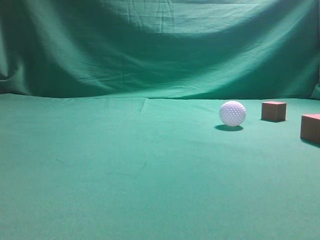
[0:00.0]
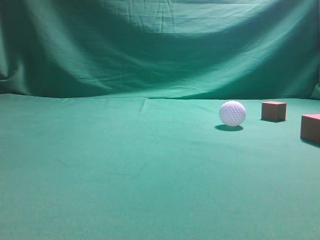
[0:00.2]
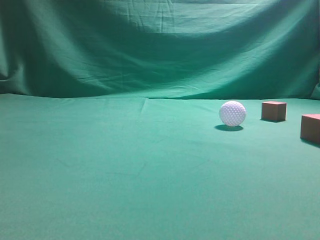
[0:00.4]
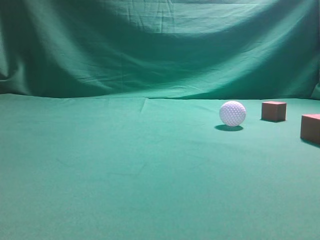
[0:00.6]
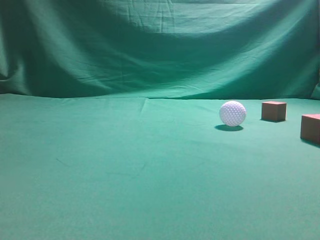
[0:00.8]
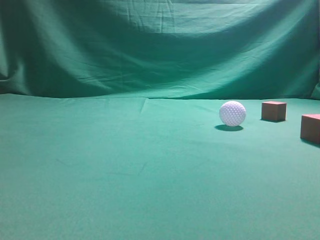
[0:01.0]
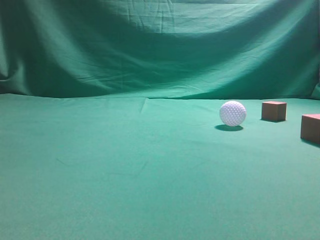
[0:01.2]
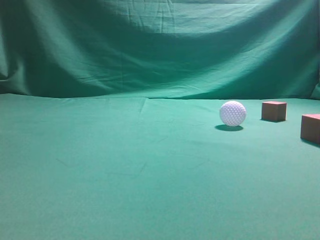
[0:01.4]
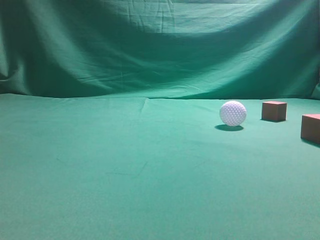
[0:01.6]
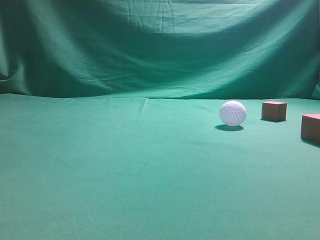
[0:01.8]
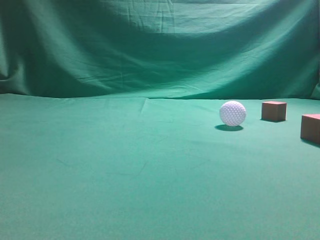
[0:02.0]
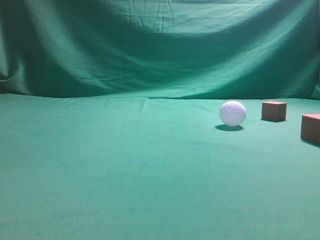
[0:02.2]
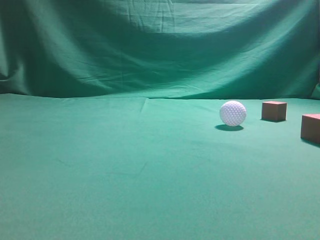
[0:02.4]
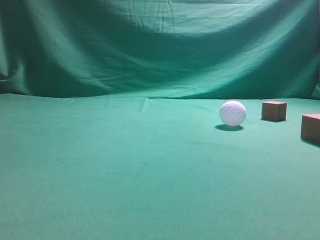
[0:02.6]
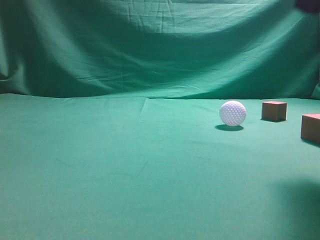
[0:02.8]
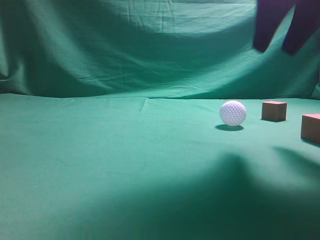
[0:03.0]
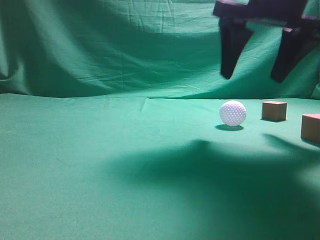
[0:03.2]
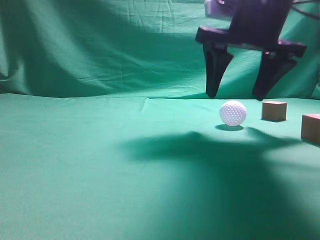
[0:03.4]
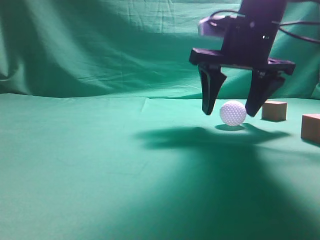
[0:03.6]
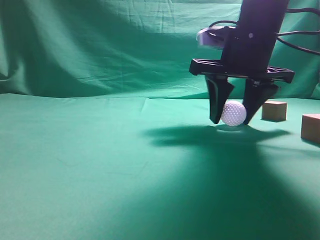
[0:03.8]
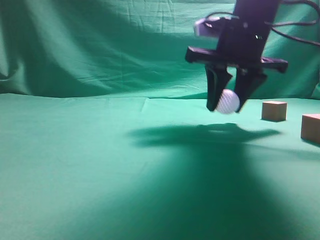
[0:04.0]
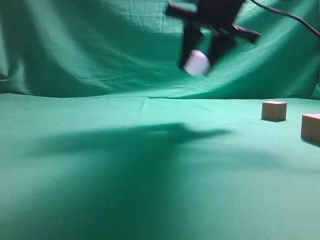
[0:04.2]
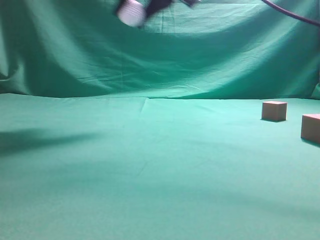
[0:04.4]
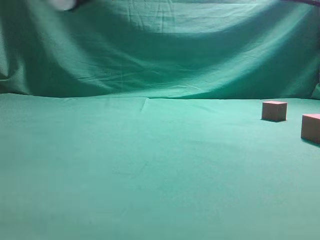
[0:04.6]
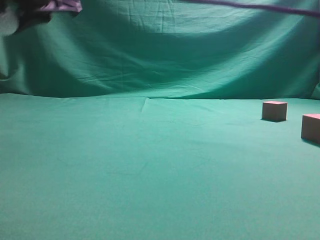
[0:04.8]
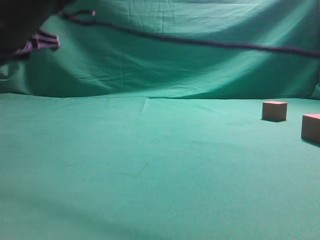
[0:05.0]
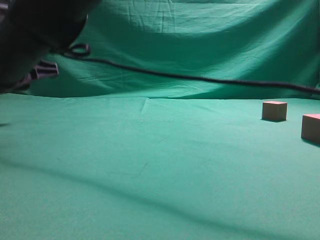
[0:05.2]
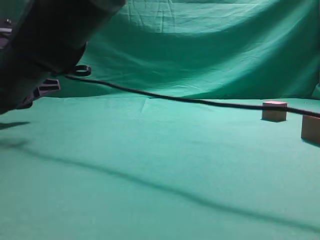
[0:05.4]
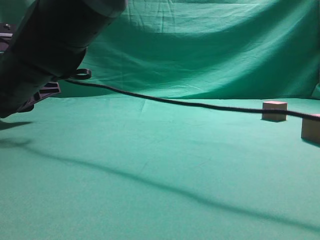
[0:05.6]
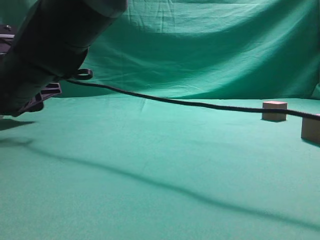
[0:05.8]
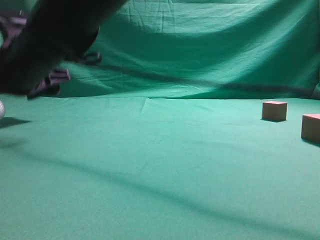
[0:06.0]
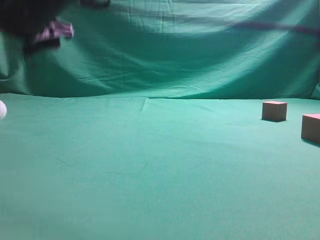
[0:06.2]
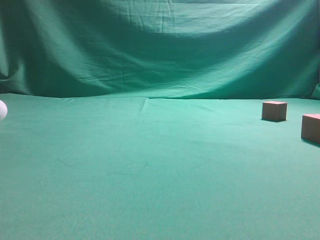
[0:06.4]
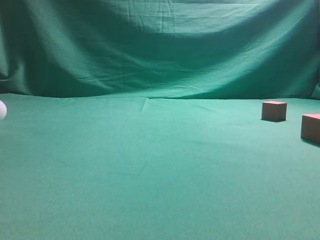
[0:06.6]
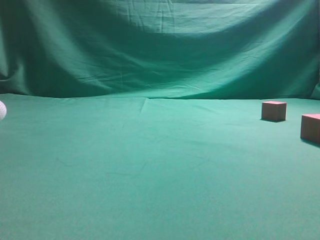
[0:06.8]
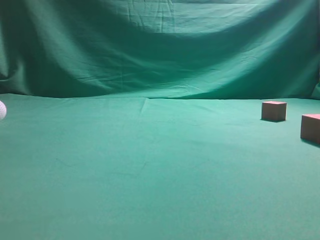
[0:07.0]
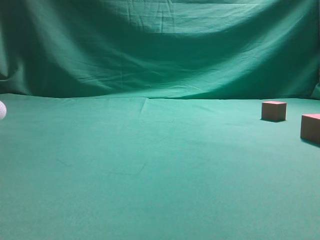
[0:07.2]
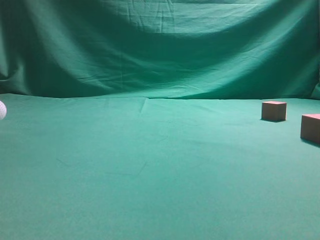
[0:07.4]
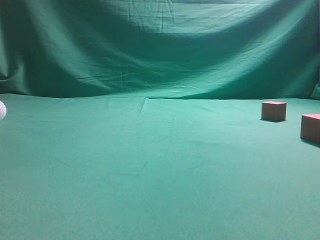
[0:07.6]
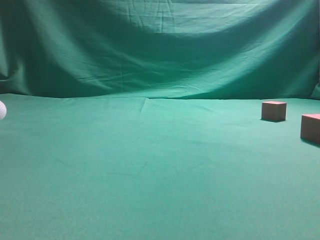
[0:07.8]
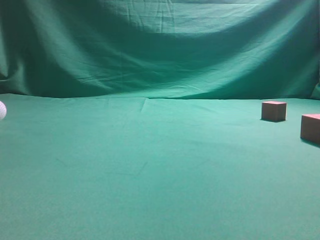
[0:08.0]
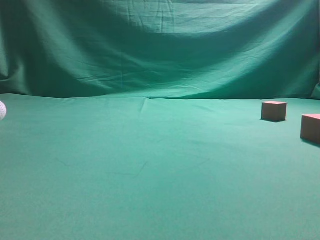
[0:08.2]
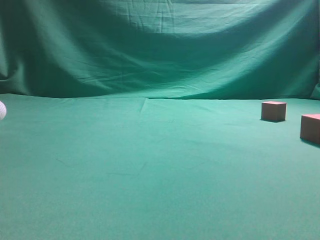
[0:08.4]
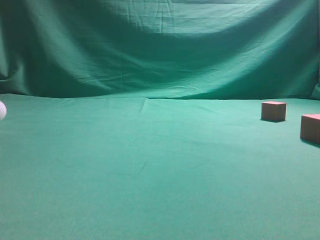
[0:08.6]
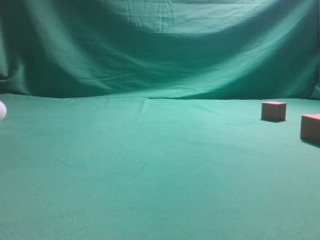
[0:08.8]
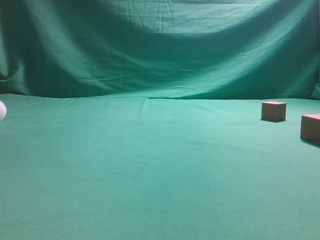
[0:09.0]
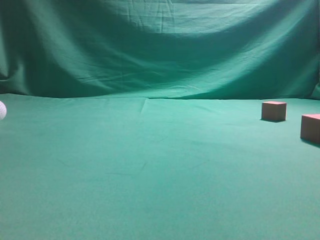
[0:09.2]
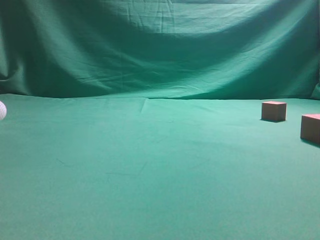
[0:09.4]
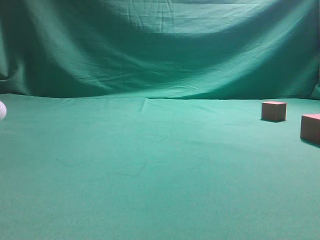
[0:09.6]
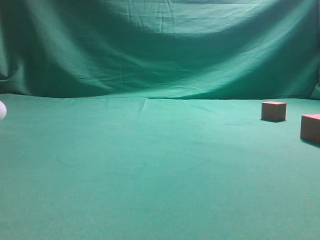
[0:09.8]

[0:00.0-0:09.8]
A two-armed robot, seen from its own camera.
Step, 0:00.0 to 0:04.4: Grasp the spherical object on the right side.
0:01.4 to 0:02.8: The right gripper travels forward, to the left and upward by about 25 cm.
0:02.8 to 0:04.2: The right gripper shifts about 20 cm forward and to the left, and opens up.
0:04.2 to 0:05.6: The right gripper is displaced to the left and downward by approximately 30 cm.
0:05.6 to 0:07.0: The right gripper moves upward and to the right, about 50 cm, and closes.
